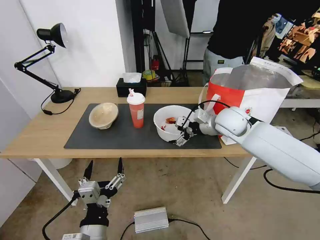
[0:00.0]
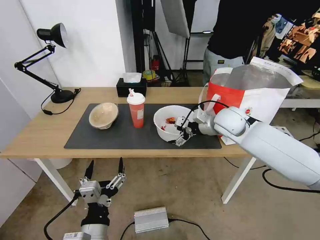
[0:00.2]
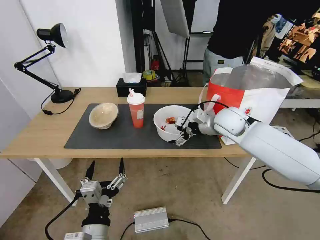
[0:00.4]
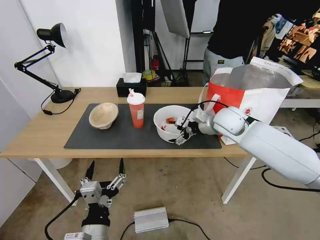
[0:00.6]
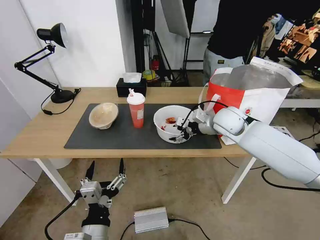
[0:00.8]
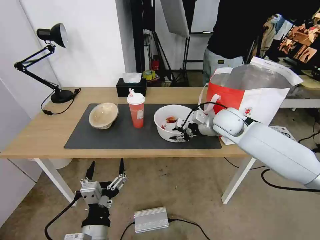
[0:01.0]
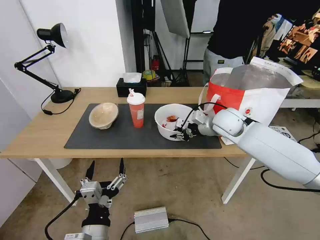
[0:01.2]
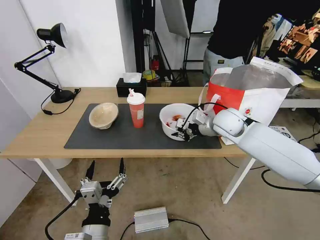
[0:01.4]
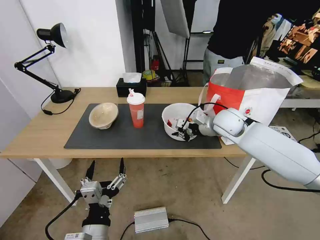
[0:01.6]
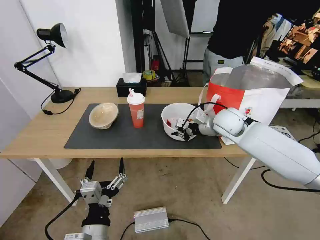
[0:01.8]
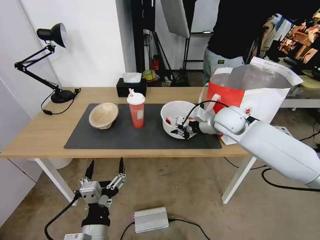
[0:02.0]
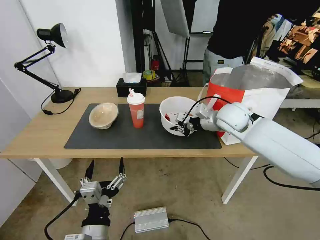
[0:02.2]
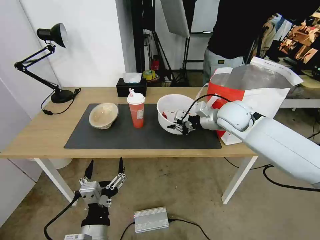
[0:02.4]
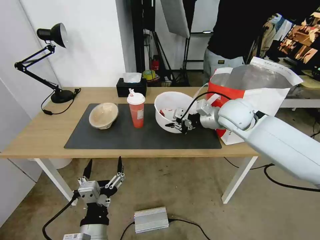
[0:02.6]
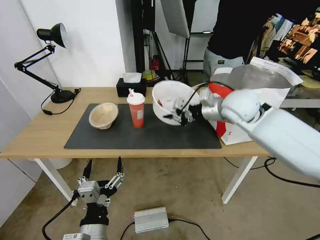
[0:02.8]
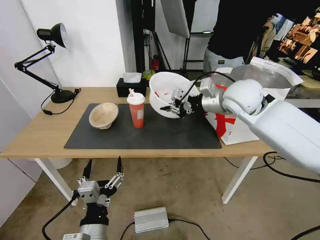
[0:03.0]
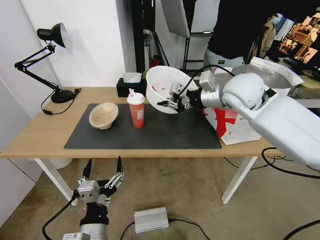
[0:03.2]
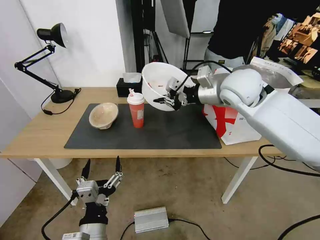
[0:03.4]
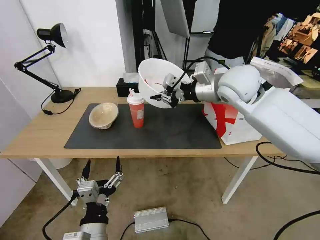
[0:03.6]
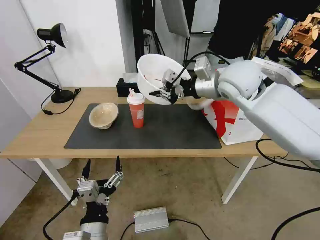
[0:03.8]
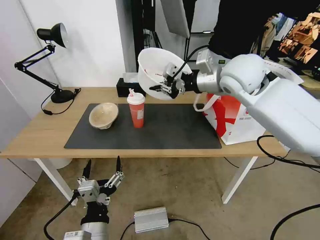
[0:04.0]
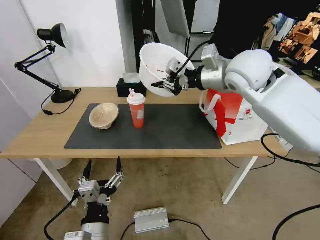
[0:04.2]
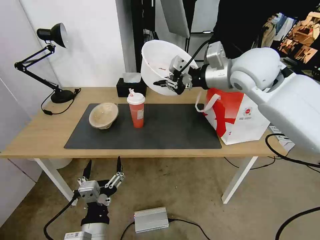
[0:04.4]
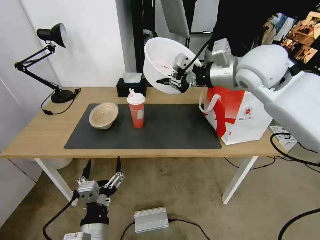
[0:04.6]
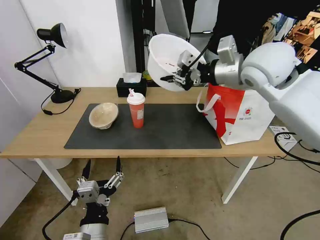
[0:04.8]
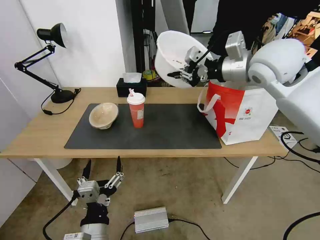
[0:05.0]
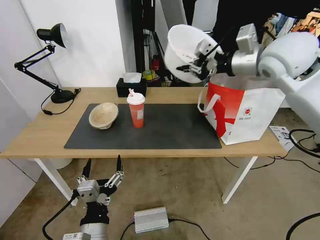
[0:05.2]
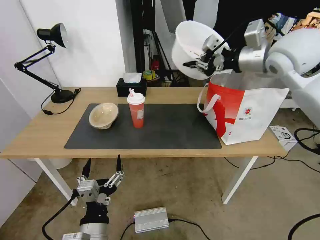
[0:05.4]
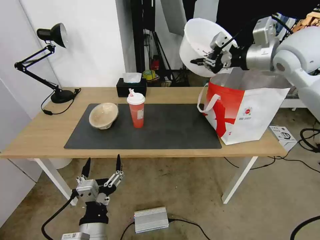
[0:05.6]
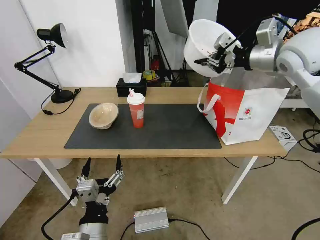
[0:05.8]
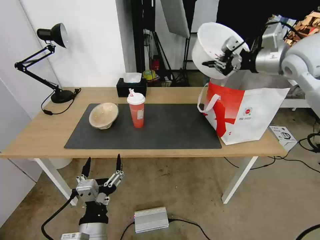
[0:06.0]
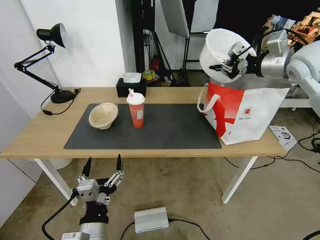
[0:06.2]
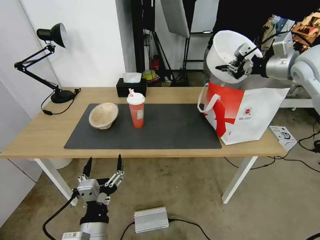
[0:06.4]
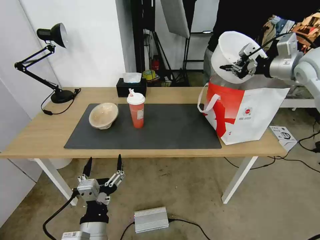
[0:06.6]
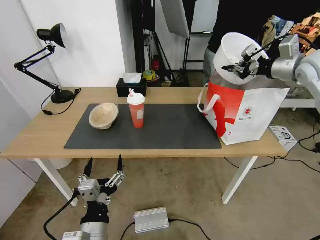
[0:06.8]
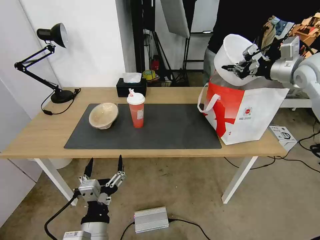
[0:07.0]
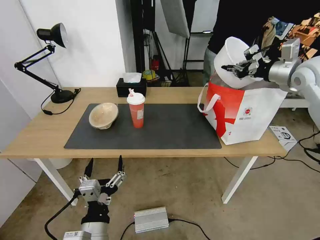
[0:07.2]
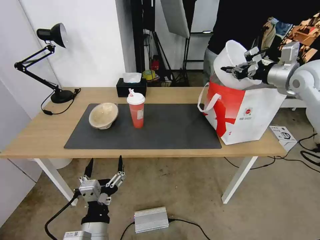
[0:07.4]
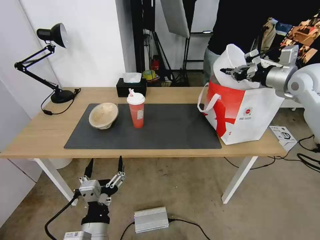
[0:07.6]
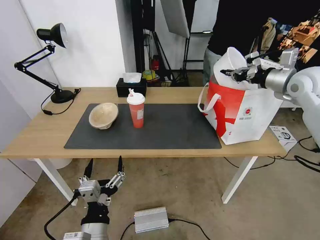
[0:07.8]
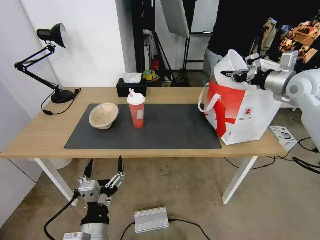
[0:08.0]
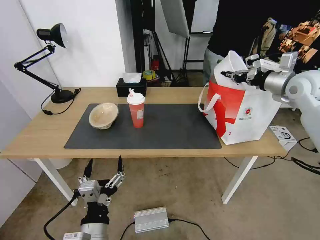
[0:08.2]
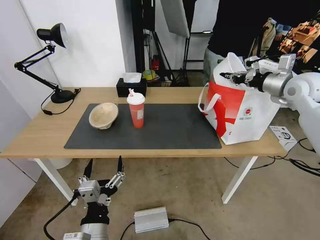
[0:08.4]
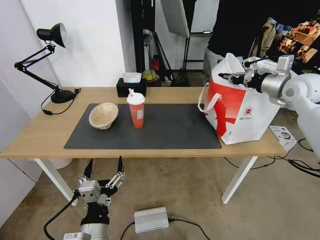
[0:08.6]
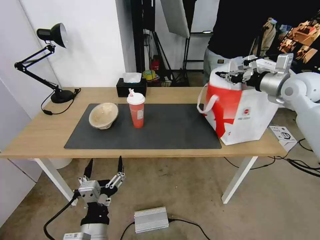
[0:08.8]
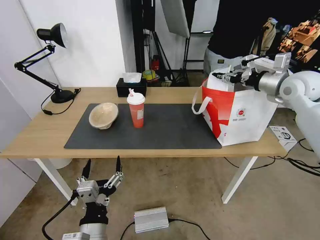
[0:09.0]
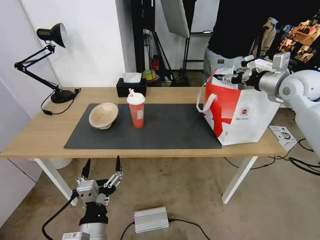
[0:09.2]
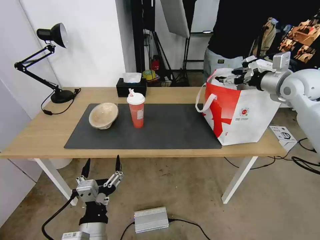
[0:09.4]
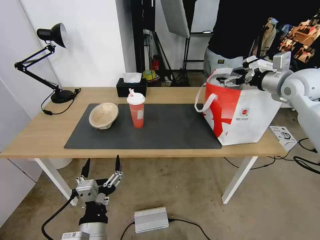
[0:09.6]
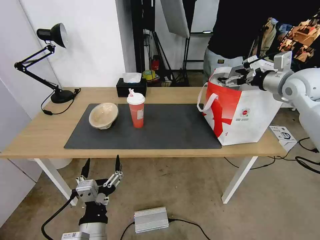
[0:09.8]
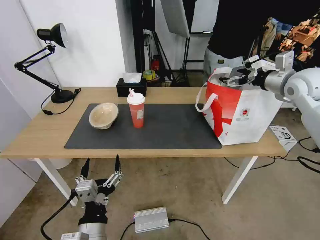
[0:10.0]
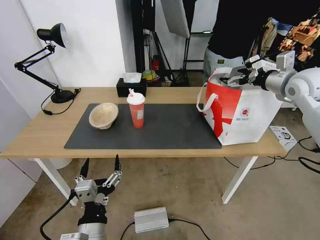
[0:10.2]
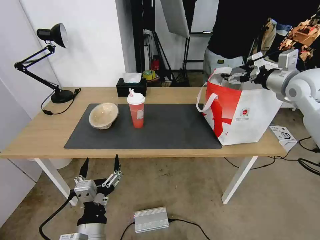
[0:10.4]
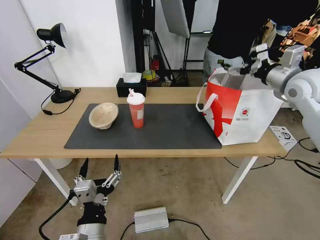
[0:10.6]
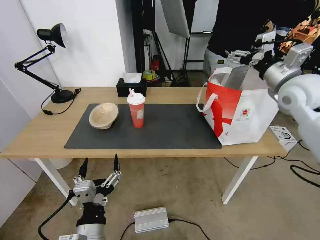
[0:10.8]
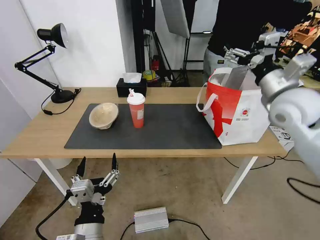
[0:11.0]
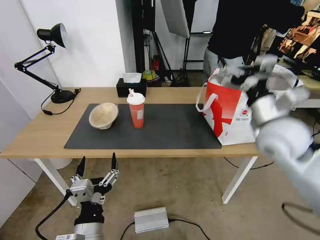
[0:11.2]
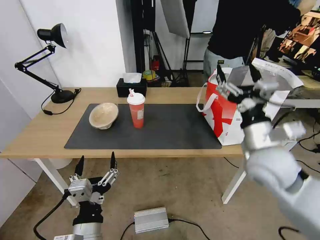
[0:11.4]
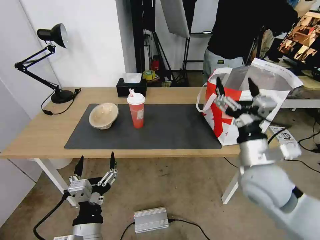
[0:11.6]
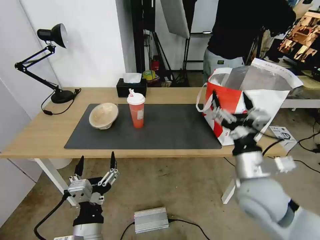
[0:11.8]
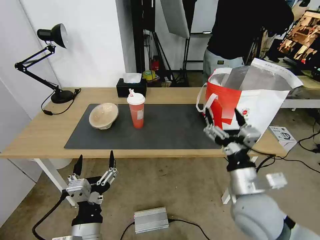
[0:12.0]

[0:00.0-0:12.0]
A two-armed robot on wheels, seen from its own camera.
Task of the whole recording: Pick up the trash from the table and place it into the takeout bag.
0:00.0 to 0:01.6: The right gripper closes.
0:01.6 to 0:03.0: The right gripper shifts approximately 10 cm upward.
0:03.0 to 0:04.4: The right gripper heads upward, covering some 10 cm.
0:04.4 to 0:06.0: The right gripper heads to the right, covering about 15 cm.
0:06.0 to 0:07.6: The right gripper moves to the right and downward, about 10 cm.
0:07.6 to 0:09.0: The right gripper opens its fingers.
0:09.0 to 0:10.4: The right gripper opens.
0:10.4 to 0:12.0: The right gripper travels backward, to the left and downward by about 40 cm.

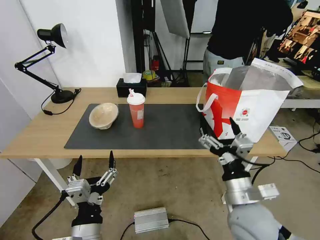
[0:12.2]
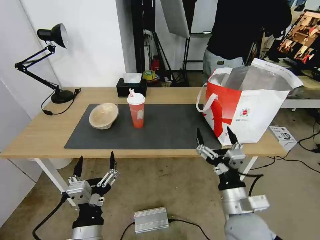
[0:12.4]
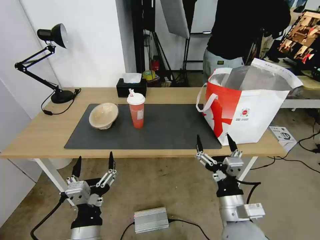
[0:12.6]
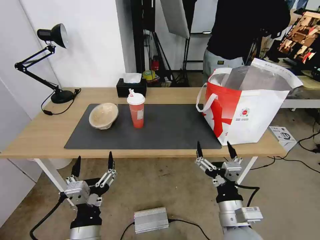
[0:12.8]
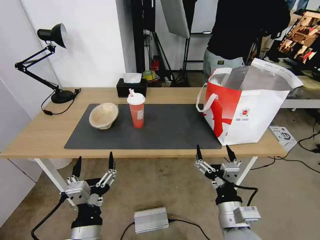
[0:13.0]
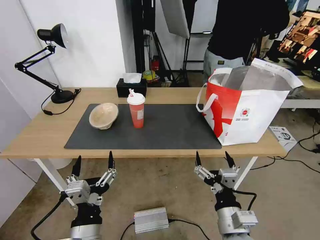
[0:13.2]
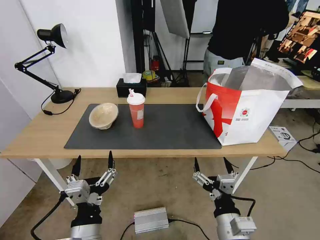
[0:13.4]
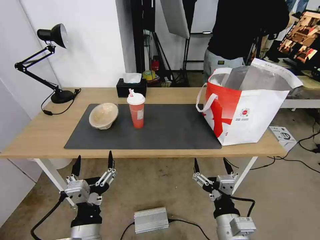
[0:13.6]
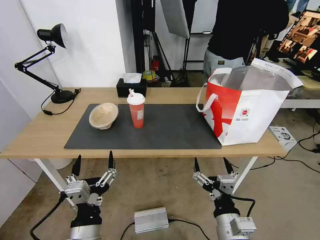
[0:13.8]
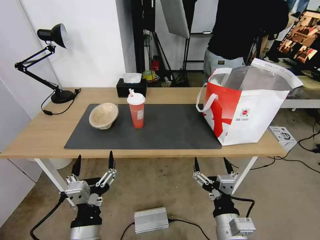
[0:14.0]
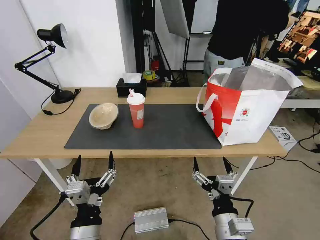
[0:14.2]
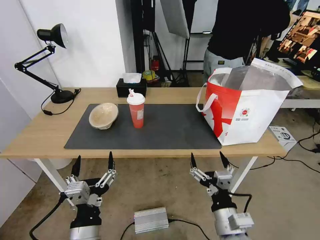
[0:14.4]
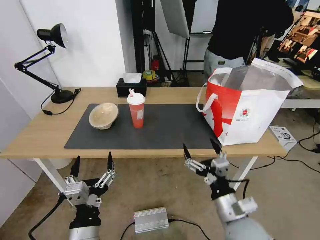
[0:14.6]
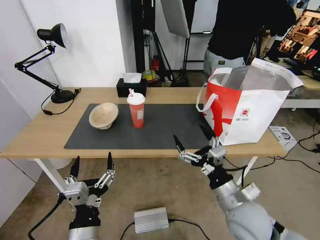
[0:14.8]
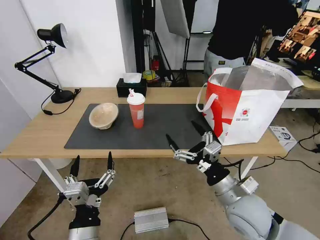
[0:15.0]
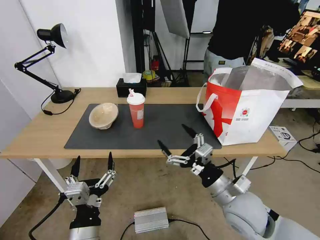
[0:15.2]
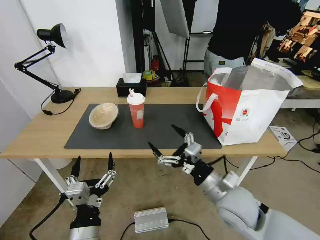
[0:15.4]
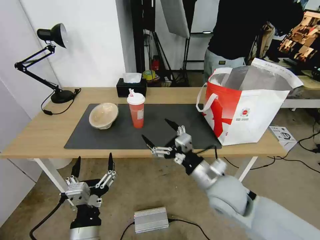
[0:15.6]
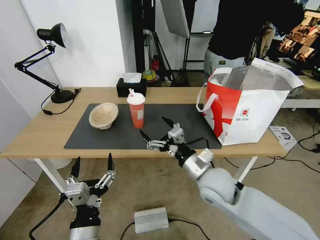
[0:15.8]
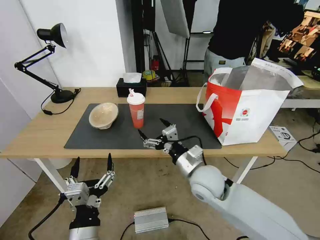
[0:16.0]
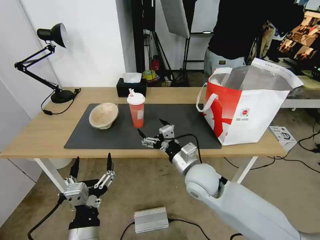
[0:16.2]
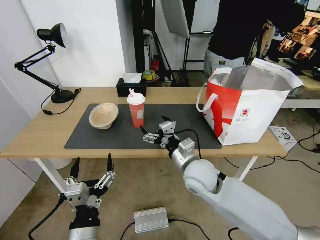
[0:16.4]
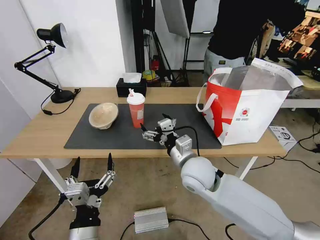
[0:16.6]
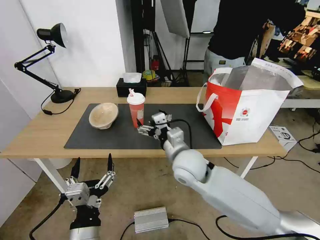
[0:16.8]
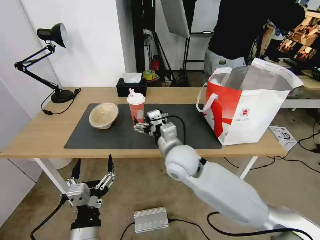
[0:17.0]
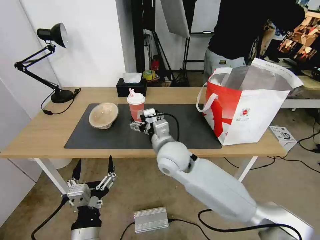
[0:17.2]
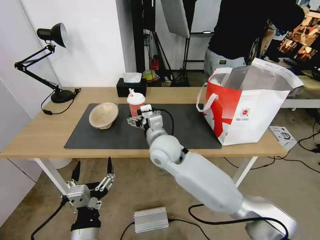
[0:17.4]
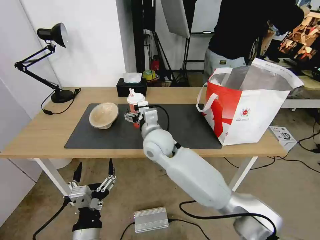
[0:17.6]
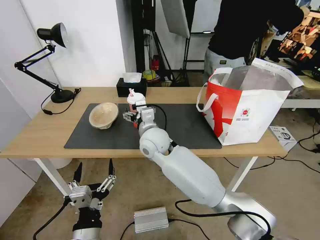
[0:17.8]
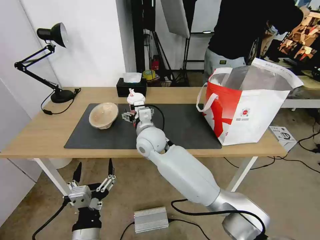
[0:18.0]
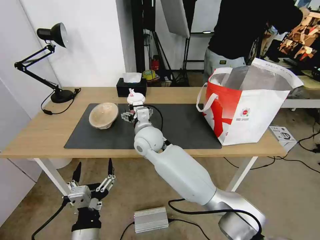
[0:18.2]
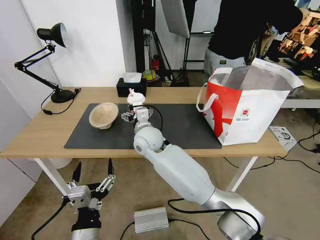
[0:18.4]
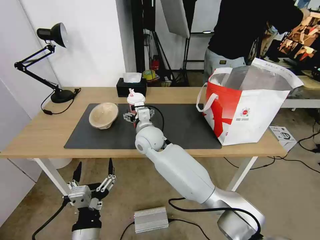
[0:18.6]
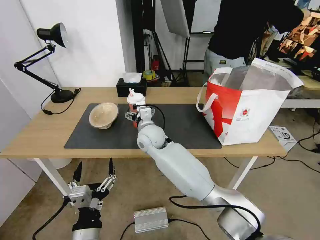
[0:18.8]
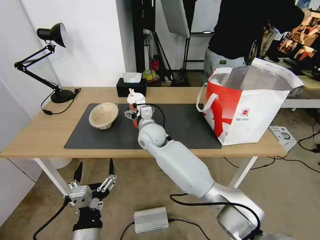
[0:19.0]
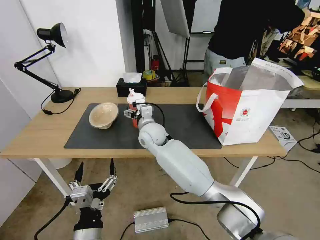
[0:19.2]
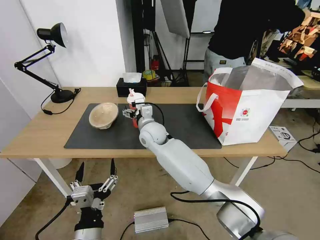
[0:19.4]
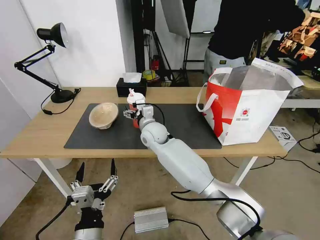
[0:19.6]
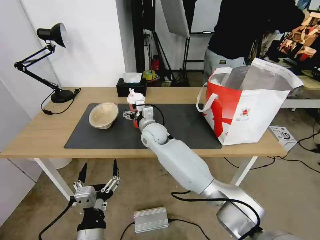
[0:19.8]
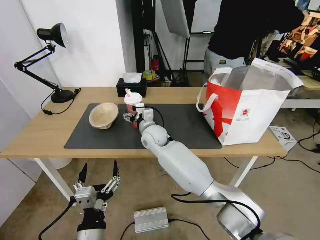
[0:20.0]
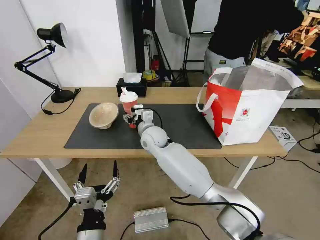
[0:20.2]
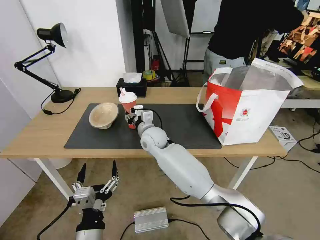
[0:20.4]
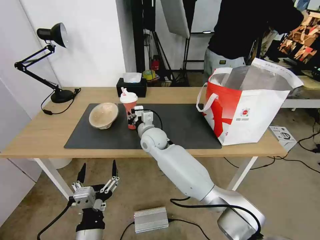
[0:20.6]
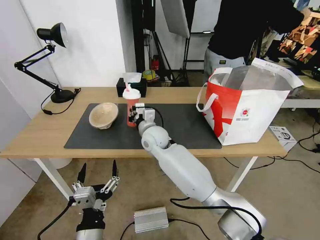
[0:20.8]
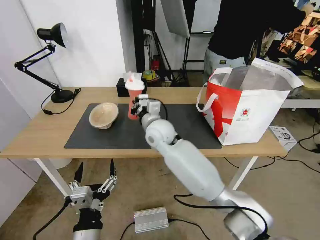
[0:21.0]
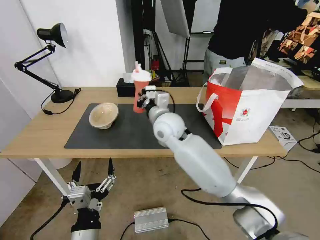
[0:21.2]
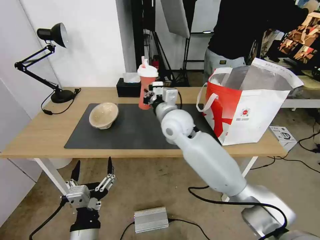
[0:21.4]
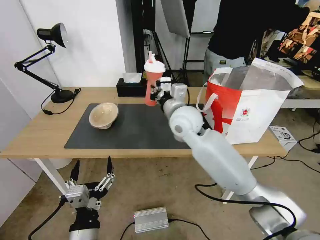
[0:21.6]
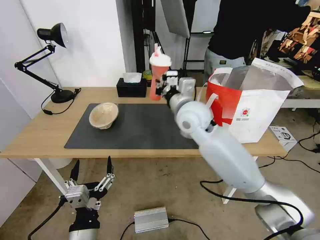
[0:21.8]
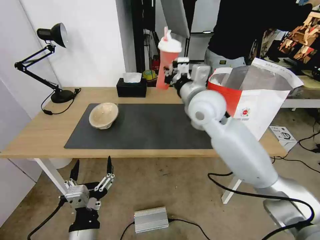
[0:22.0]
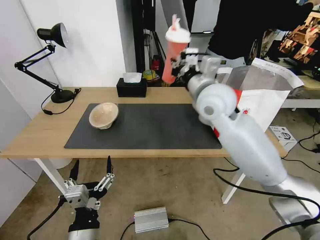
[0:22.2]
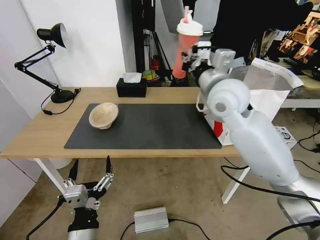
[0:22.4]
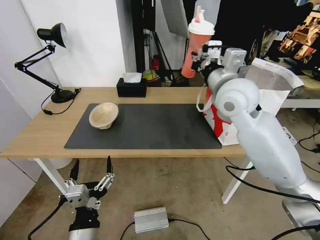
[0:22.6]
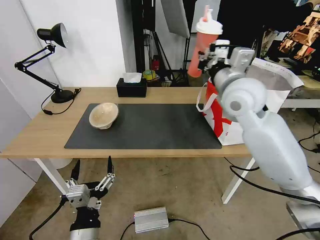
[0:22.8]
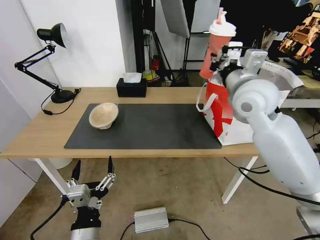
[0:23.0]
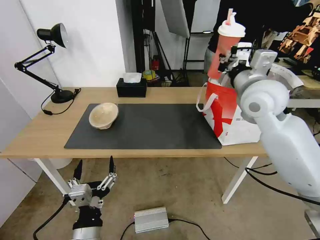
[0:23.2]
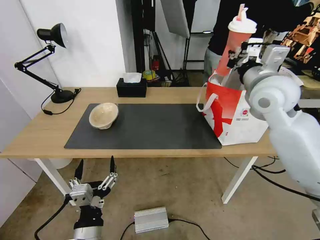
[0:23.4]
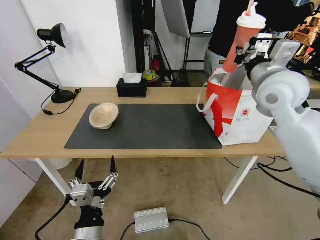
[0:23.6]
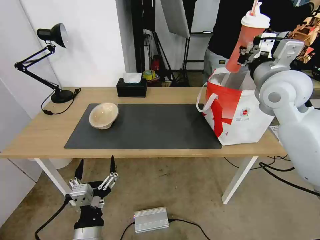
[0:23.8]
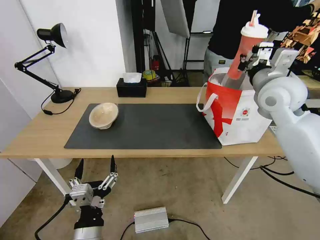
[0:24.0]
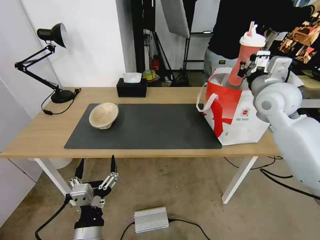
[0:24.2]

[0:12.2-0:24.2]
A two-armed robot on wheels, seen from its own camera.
Task of the whole recording: Pick up the trash from the table and place it into the takeout bag.
0:12.2 to 0:13.8: The right gripper is displaced backward and downward by some 10 cm.
0:13.8 to 0:15.2: The right gripper moves forward, some 10 cm.
0:15.2 to 0:16.6: The right gripper heads to the left and forward, covering approximately 15 cm.
0:16.6 to 0:18.2: The right gripper shifts approximately 20 cm to the left and forward.
0:18.2 to 0:19.8: The right gripper is displaced forward by roughly 5 cm.
0:19.8 to 0:21.2: The right gripper goes some 10 cm upward and to the right, and closes up.
0:21.2 to 0:22.6: The right gripper goes roughly 20 cm to the right and upward.
0:22.6 to 0:24.2: The right gripper moves to the right, roughly 15 cm.
